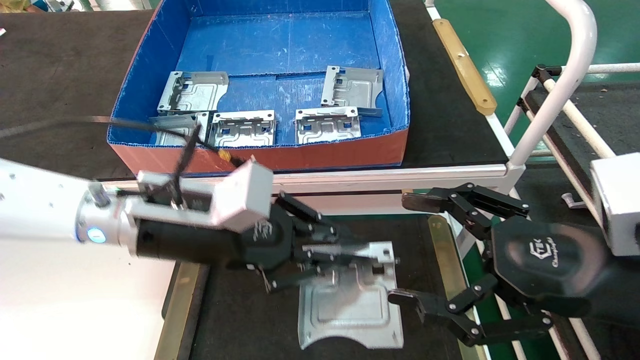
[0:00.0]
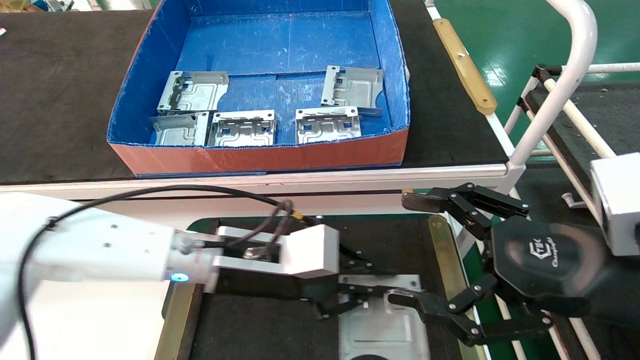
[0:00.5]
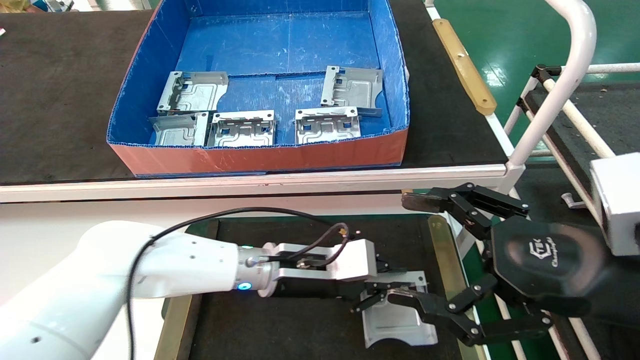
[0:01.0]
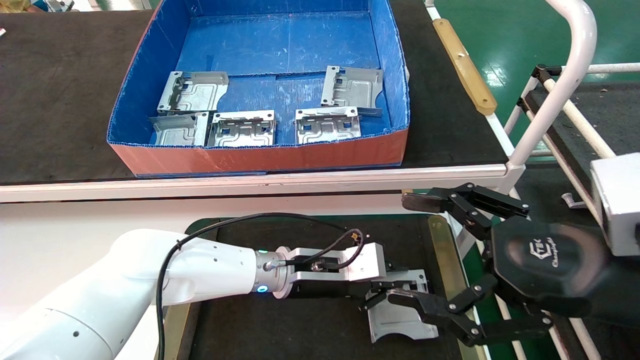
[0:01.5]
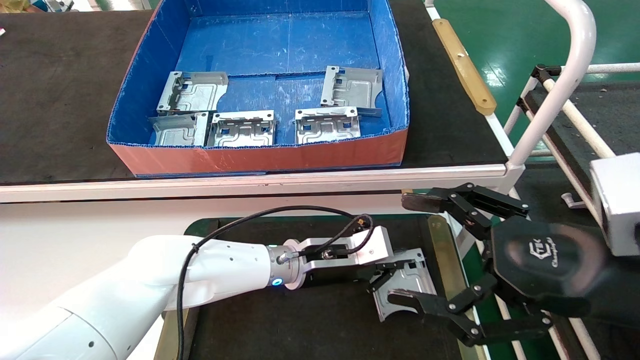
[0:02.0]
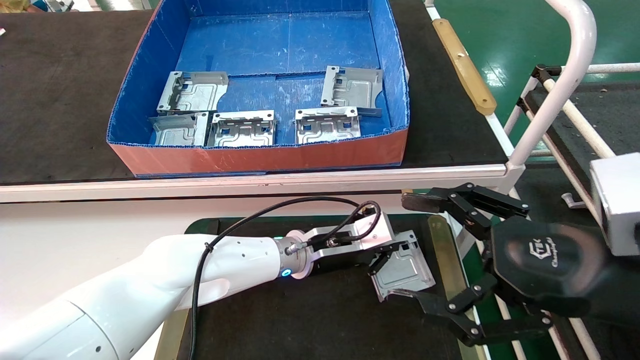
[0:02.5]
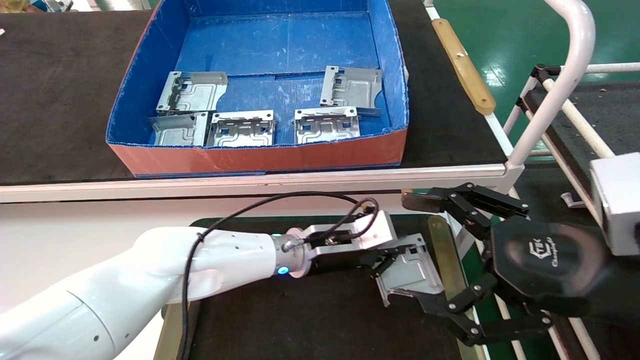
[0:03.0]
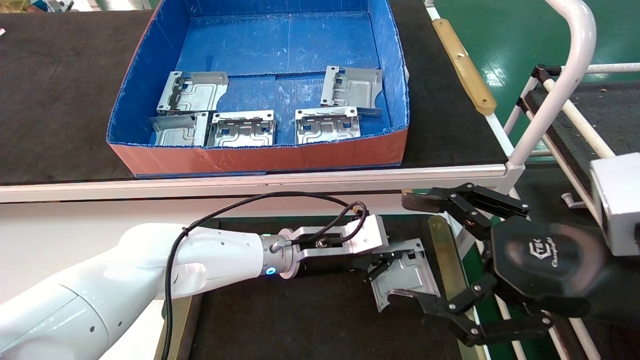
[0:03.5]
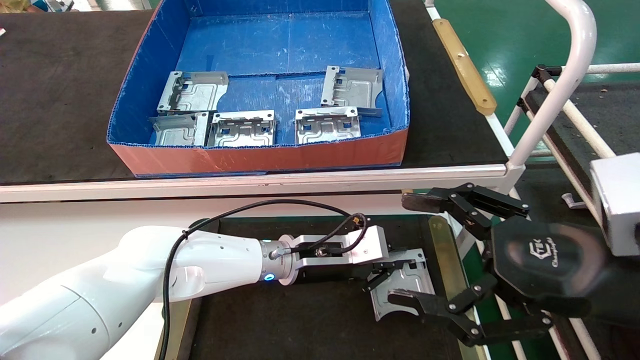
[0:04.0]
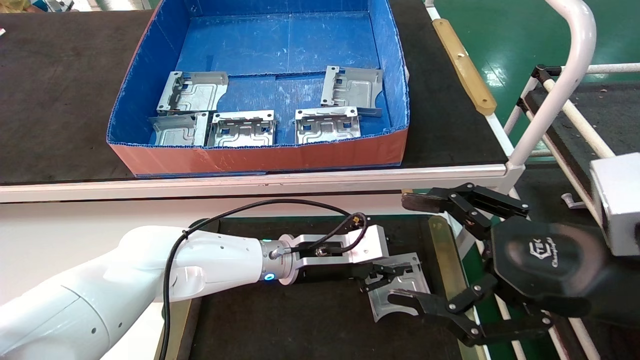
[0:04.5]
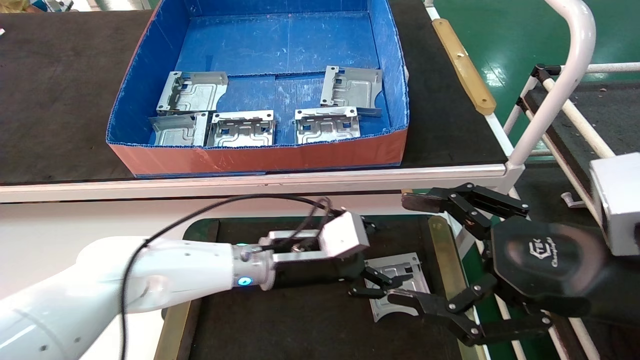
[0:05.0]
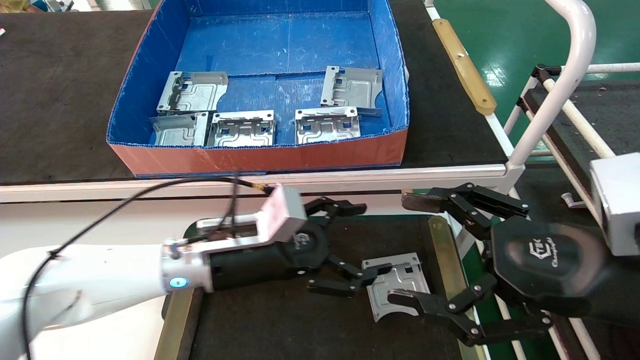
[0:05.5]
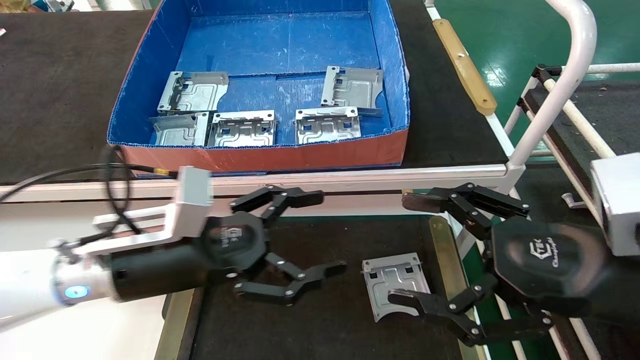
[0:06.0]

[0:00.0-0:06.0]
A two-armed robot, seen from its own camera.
Task of the whole recording: take the accessories out of the box and place them on the table.
Step, 0:00.0 to 0:04.0: Place the hard drive bracket into the box.
0:00.0 to 0:02.0: The left gripper travels downward, to the right and forward by roughly 20 cm.
0:02.0 to 0:04.0: The grippers make only small movements.
0:04.0 to 0:06.0: The left gripper goes some 20 cm to the left, backward and upward, and opens.
